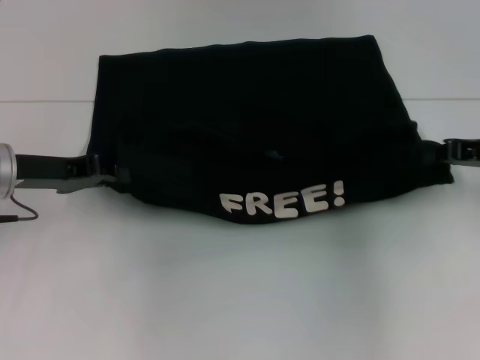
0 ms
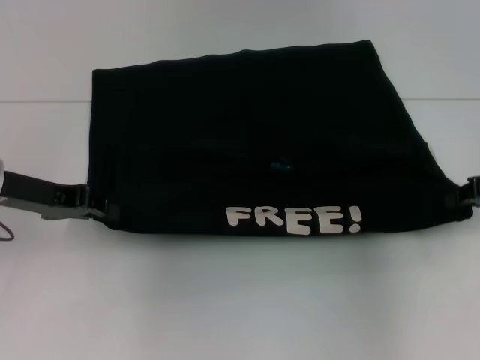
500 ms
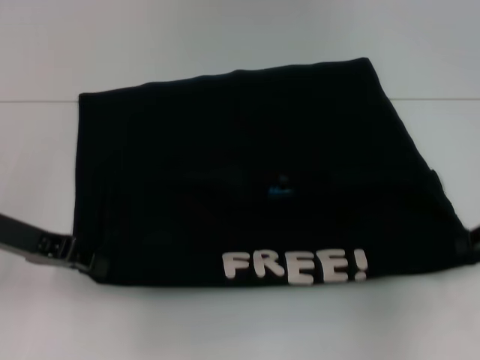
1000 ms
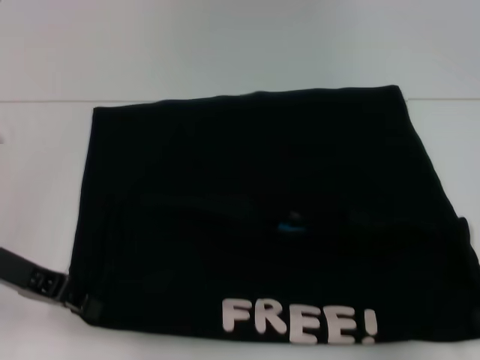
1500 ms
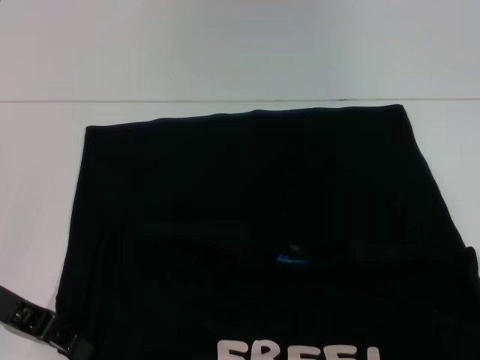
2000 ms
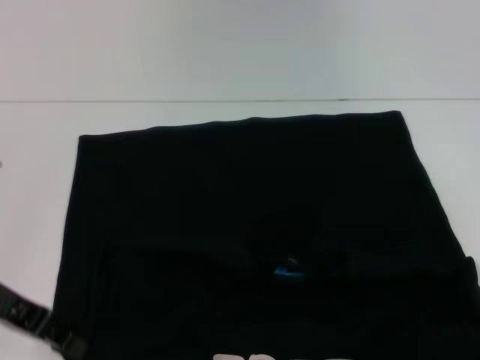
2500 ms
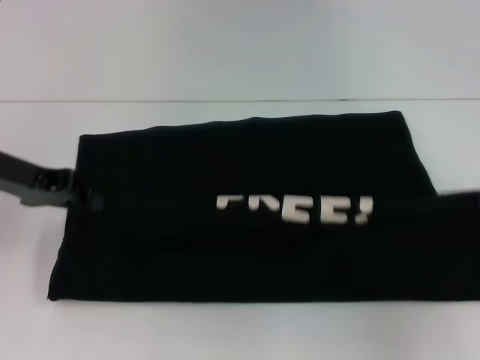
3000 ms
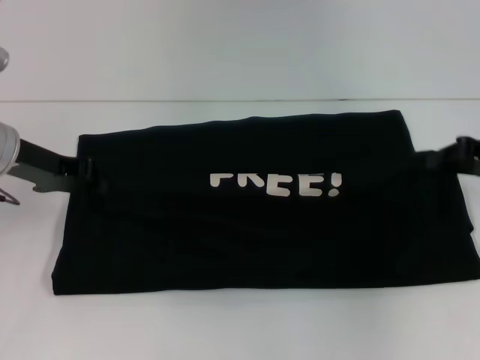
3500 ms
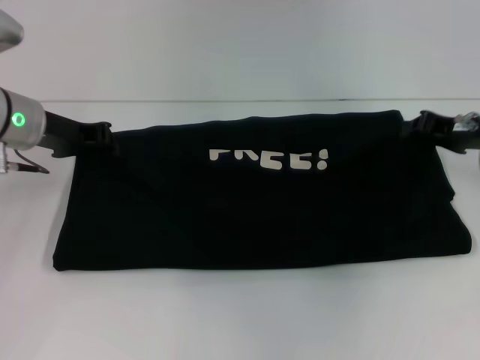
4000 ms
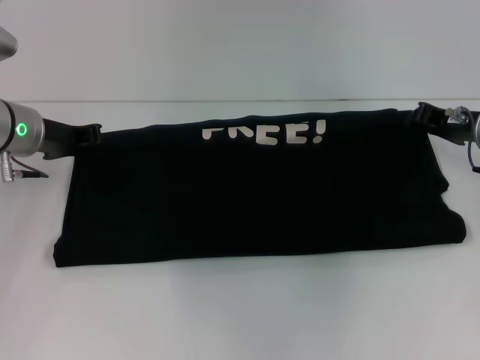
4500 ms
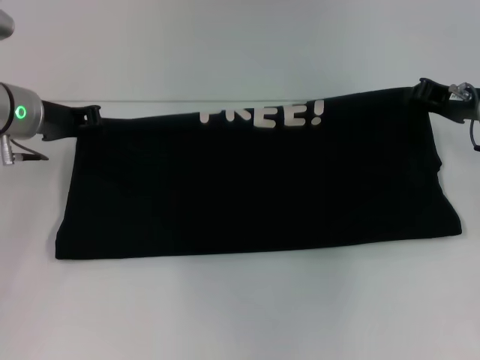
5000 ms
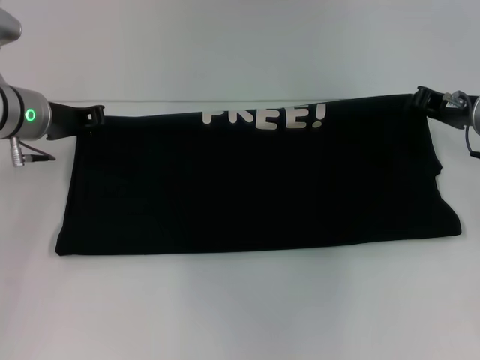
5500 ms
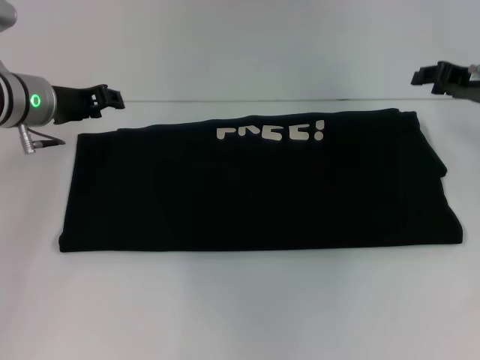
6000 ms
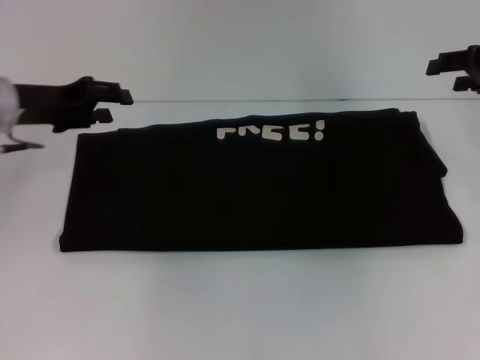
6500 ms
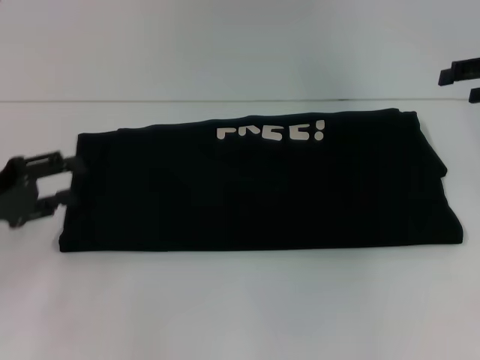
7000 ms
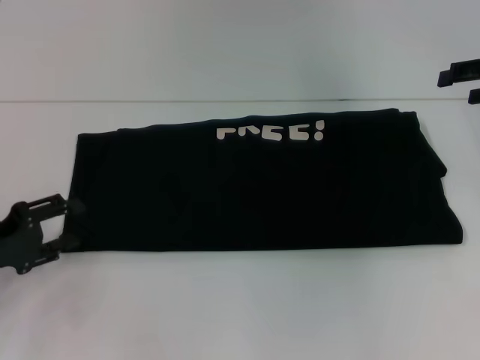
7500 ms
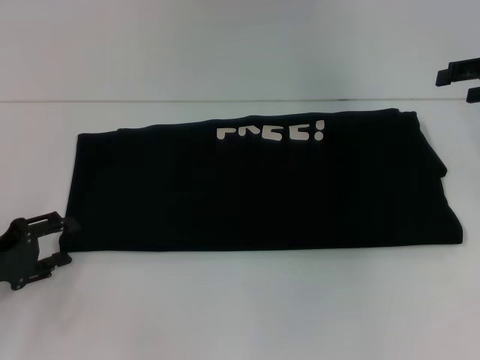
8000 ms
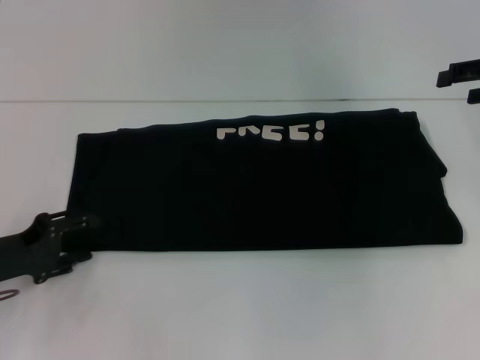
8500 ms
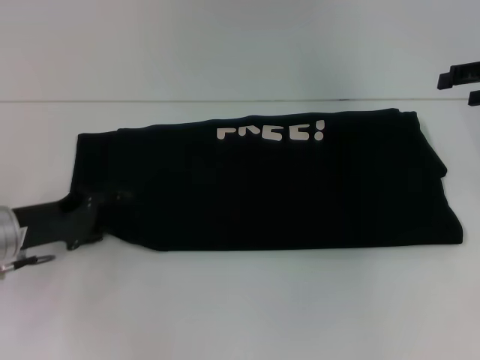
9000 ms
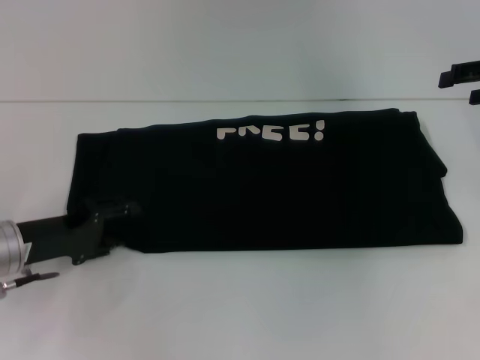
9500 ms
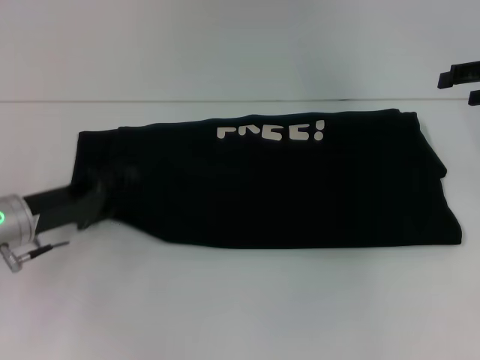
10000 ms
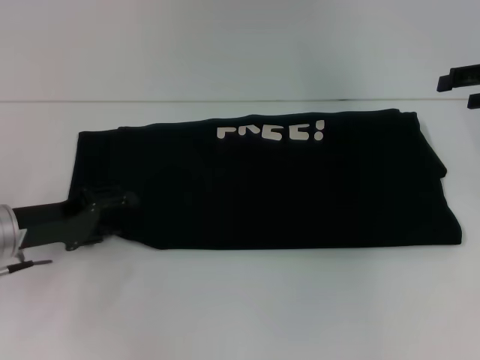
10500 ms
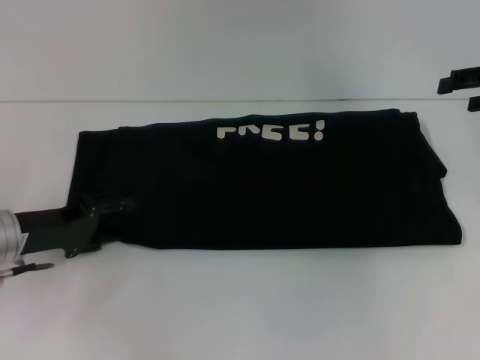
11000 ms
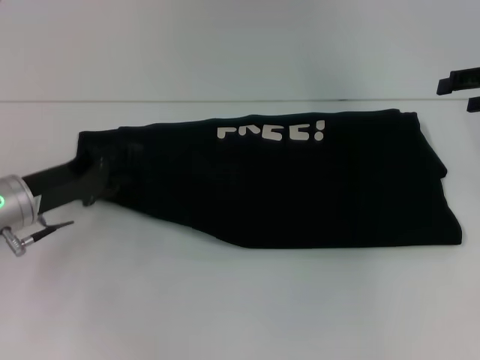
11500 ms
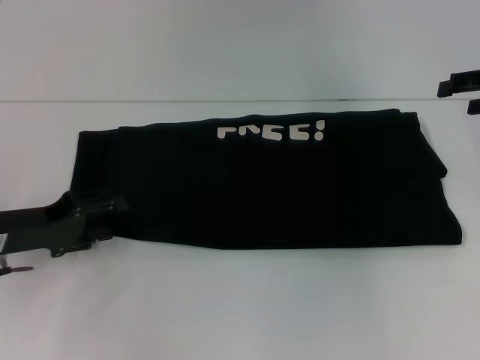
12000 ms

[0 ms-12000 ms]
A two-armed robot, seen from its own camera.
Step, 2000 ms to 5500 ms: Fold the clothes with your right hand.
0 ms to 2000 ms: The right gripper moves backward, roughly 15 cm; the left gripper is displaced backward by about 10 cm.
2000 ms to 4000 ms: The right gripper goes roughly 20 cm forward and to the left, while the left gripper heads forward, covering about 15 cm.
4000 ms to 6000 ms: The right gripper changes place by about 5 cm.
6000 ms to 8000 ms: The left gripper travels backward, to the left and downward by roughly 20 cm, and opens; the right gripper heads upward, covering approximately 5 cm, and opens its fingers.
8000 ms to 10000 ms: The left gripper goes approximately 10 cm to the right and forward.
10000 ms to 12000 ms: There are only small adjustments of the grippers.

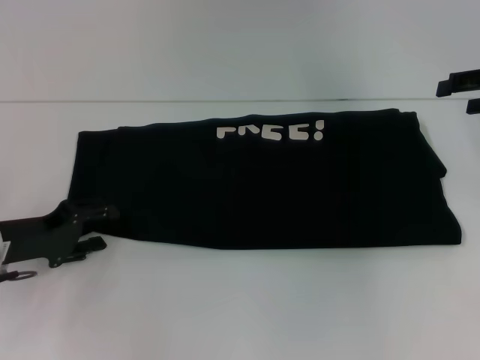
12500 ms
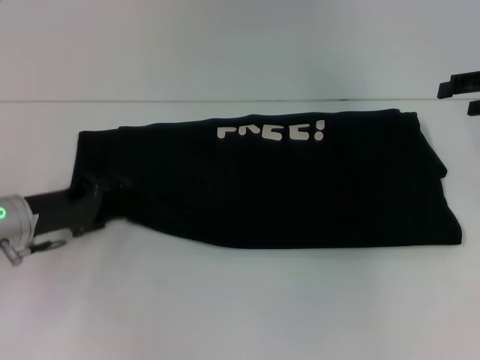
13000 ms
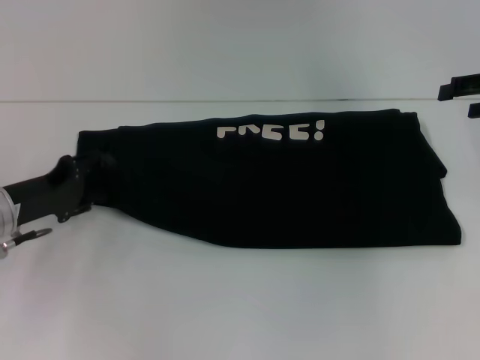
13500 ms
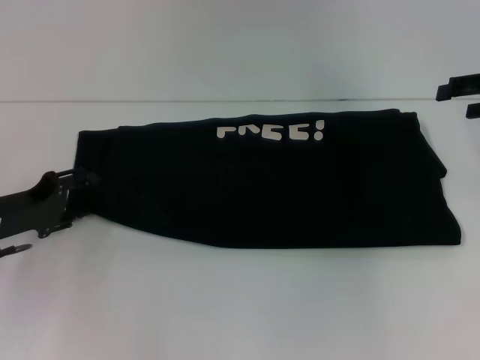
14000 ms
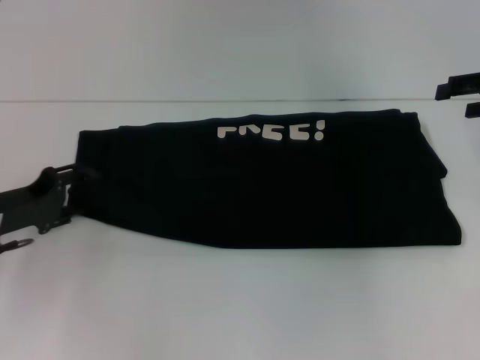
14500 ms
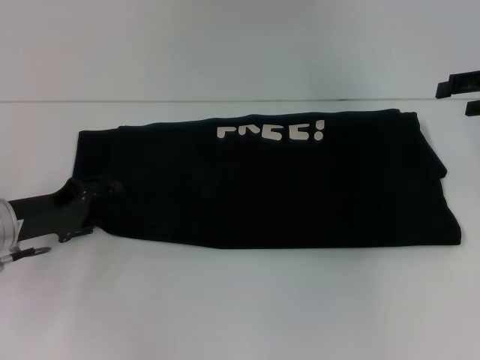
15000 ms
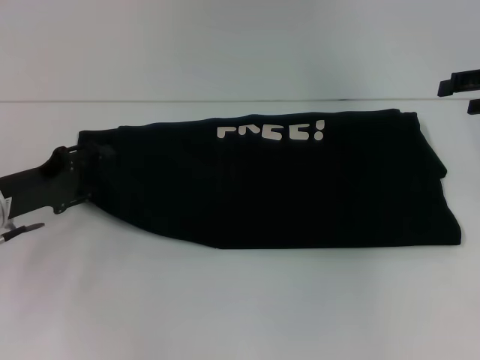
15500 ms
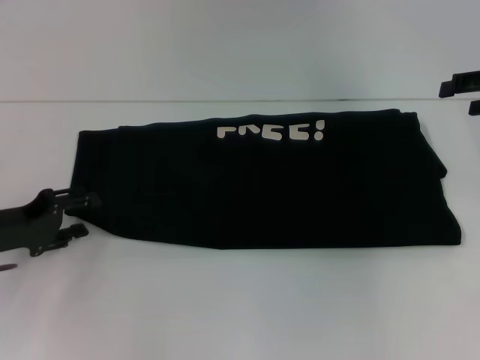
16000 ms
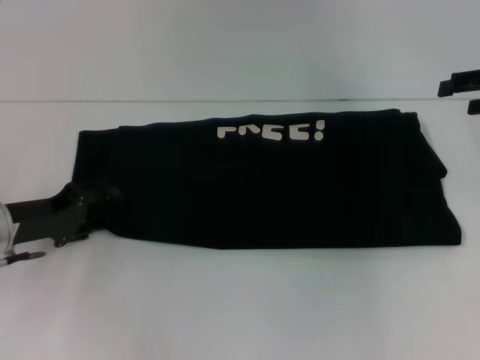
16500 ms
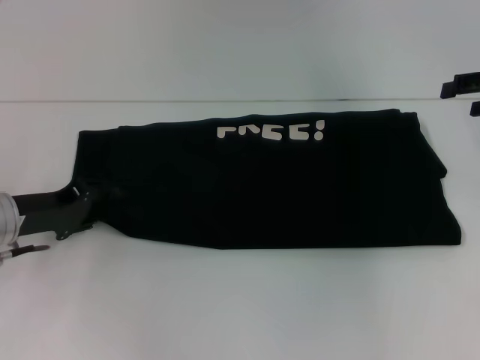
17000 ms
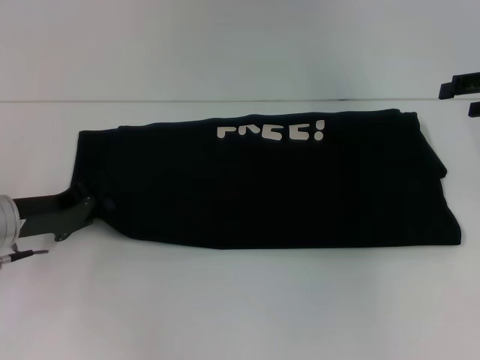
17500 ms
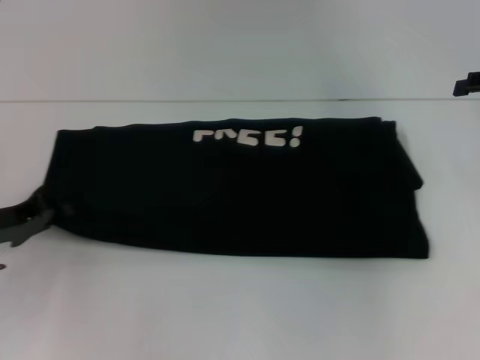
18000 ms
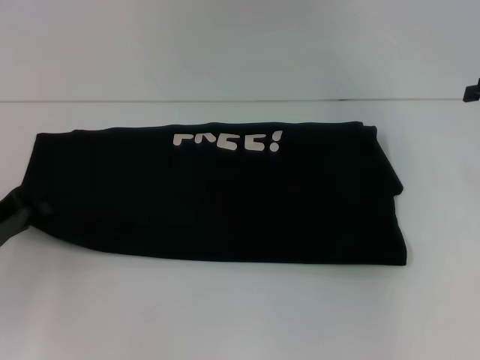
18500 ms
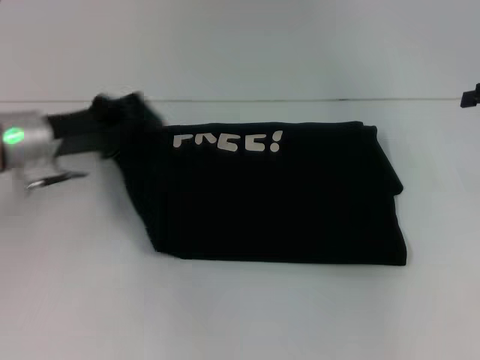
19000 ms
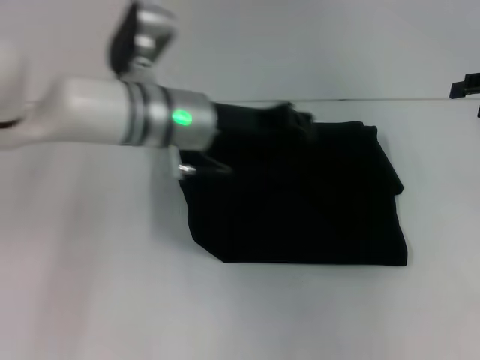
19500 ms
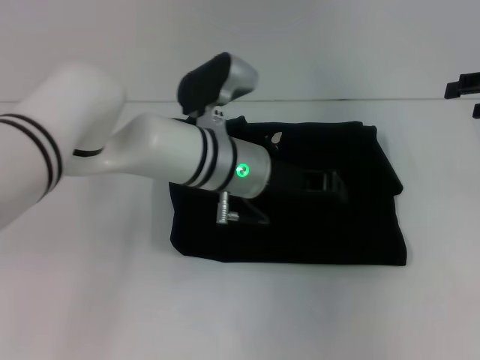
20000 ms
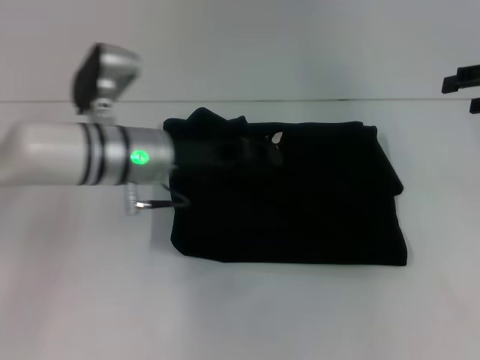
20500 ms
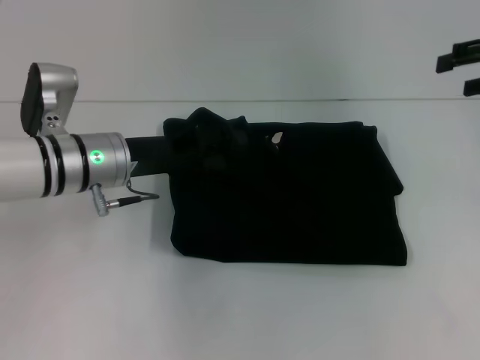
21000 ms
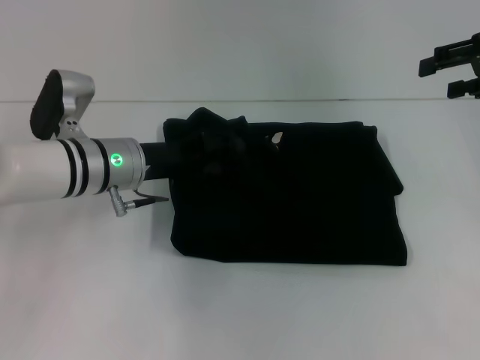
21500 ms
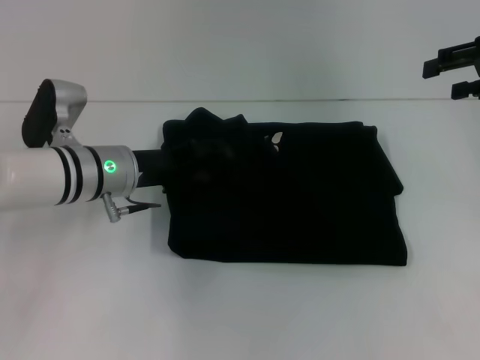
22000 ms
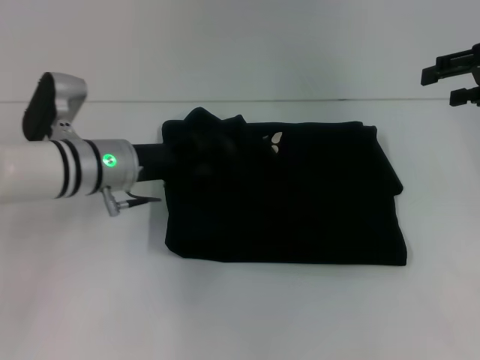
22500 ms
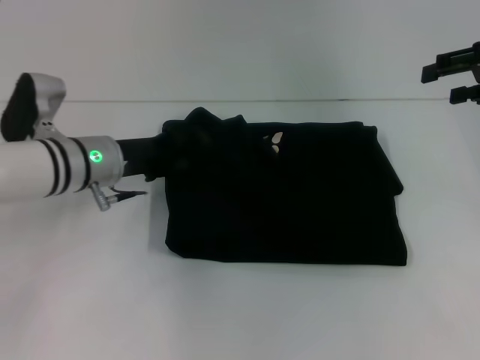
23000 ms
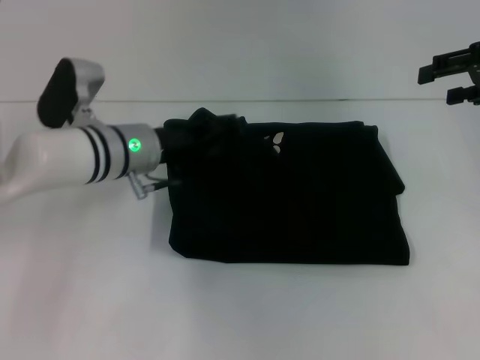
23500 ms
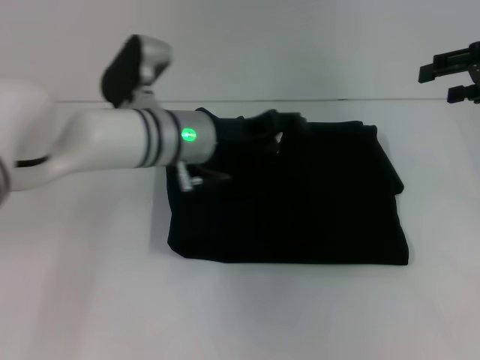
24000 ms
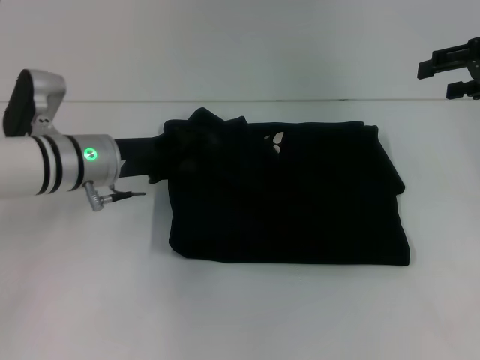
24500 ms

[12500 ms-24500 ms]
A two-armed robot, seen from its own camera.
12500 ms to 16500 ms: There are only small adjustments of the grippers.
16500 ms to 18500 ms: The left gripper ends up about 5 cm from where it was, and closes its fingers.
18500 ms to 20500 ms: The left gripper moves to the right, about 20 cm.
20500 ms to 22500 ms: The left gripper opens.
22500 ms to 24500 ms: The left gripper travels to the right and back again, about 10 cm each way.

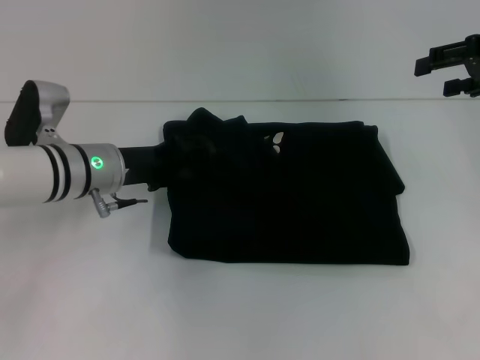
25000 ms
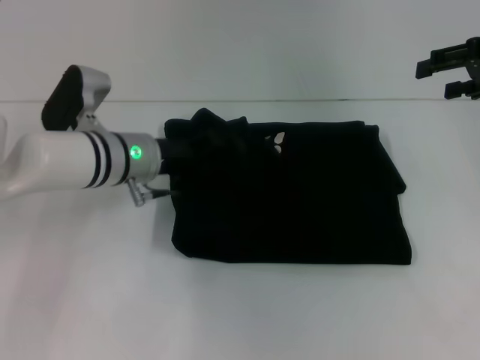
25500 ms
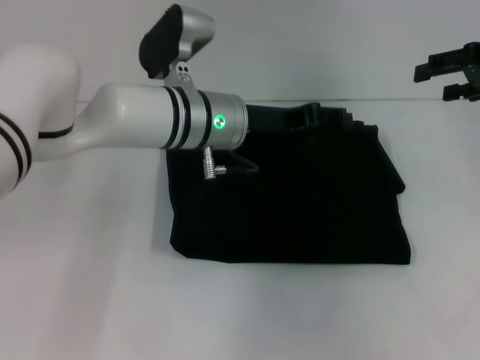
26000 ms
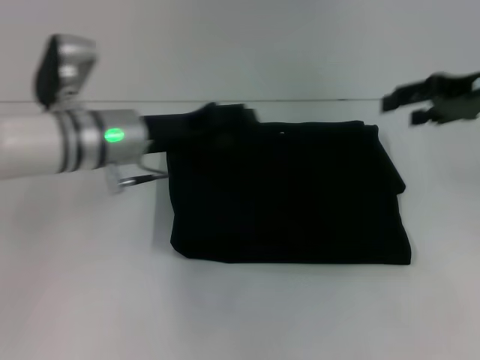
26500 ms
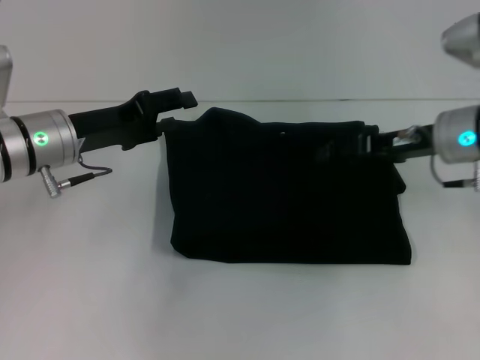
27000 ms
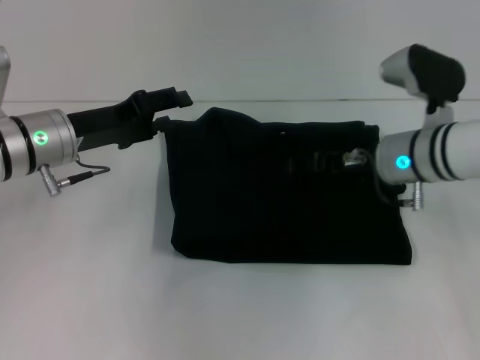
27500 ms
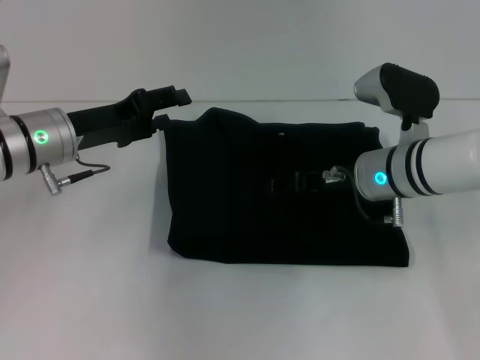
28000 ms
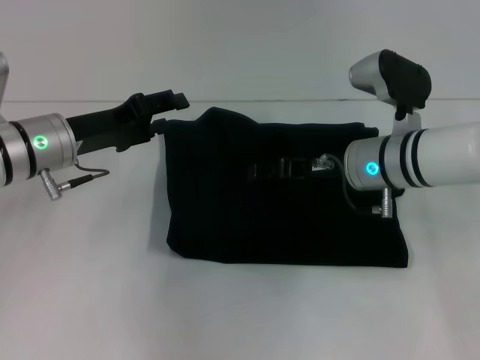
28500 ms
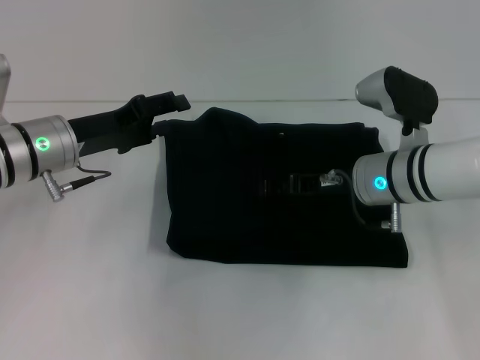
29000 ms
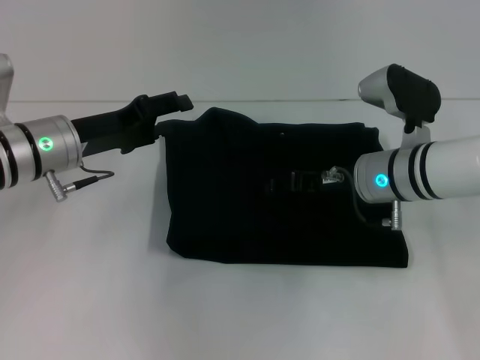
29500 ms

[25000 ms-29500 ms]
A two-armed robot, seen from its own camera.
25000 ms to 27000 ms: The left gripper moves about 10 cm to the right and comes back; the right gripper heads downward and to the left, covering some 15 cm.
27000 ms to 29500 ms: The right gripper heads to the left, covering approximately 5 cm.
